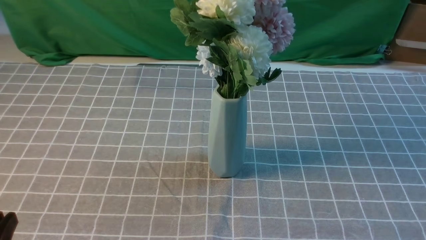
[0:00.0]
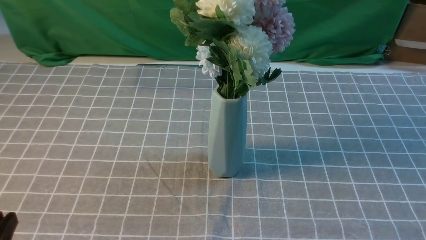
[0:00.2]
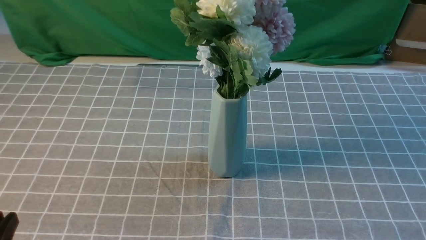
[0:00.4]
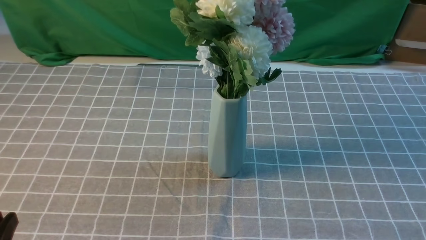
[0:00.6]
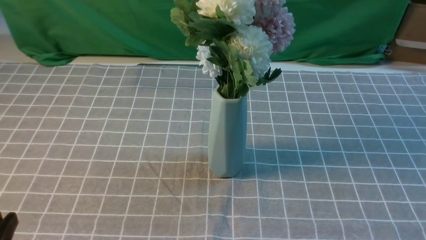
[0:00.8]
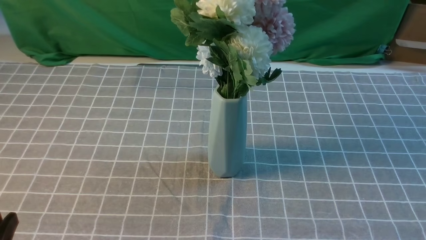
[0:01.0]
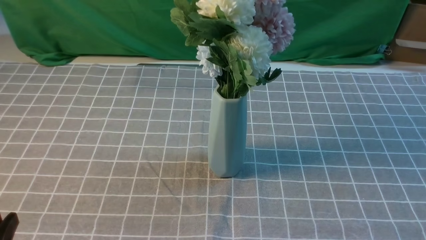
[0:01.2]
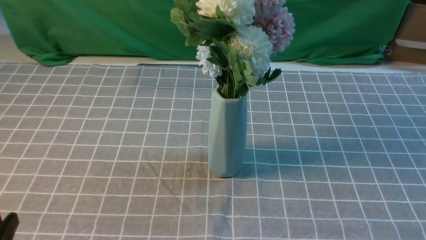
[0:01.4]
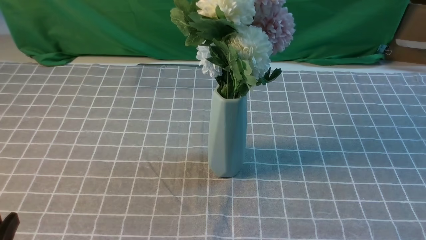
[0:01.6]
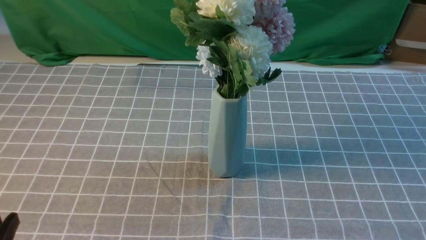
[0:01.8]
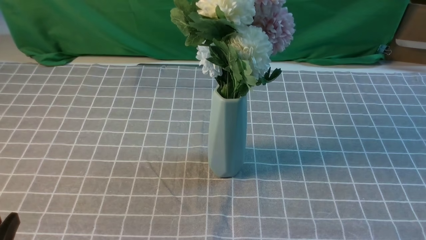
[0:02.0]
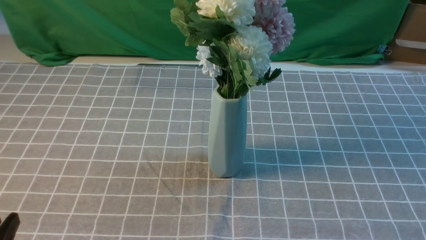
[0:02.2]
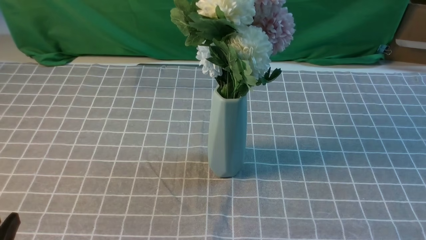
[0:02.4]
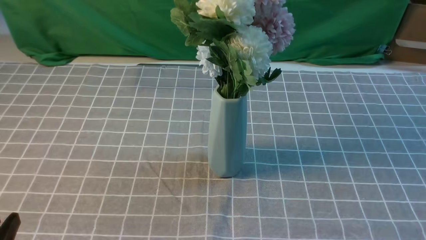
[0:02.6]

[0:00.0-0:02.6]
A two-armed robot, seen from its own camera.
Task of the whole recording: insert the flowers into the vase on the table with the grey tablecloth.
0:01.2 to 0:02.6: Both grippers stay about where they are.
